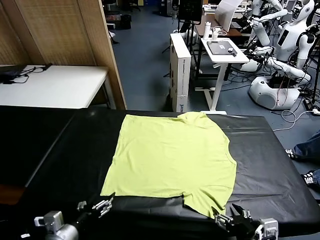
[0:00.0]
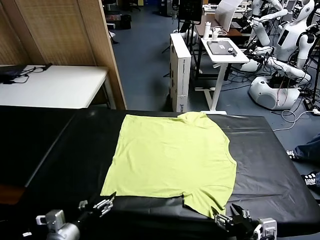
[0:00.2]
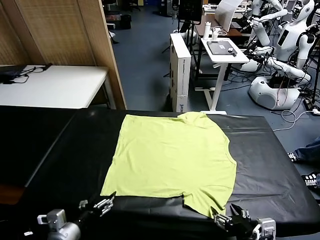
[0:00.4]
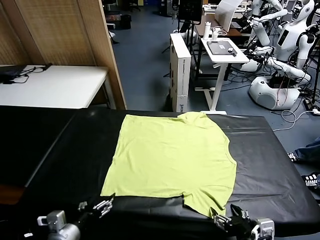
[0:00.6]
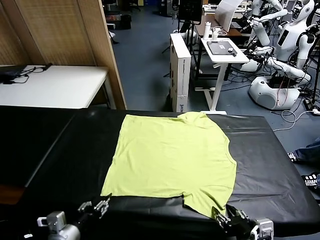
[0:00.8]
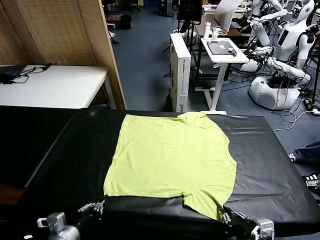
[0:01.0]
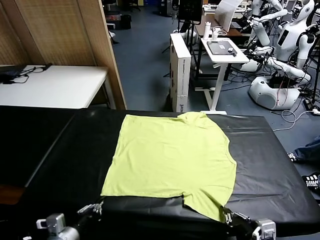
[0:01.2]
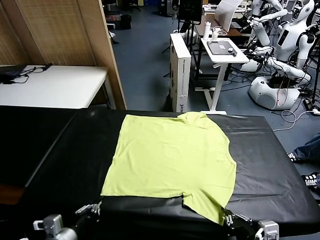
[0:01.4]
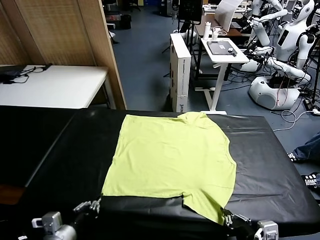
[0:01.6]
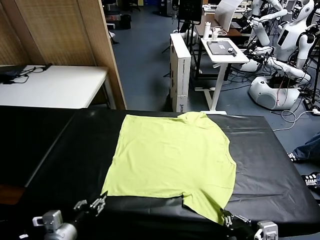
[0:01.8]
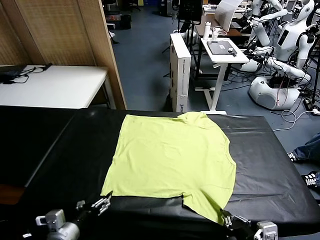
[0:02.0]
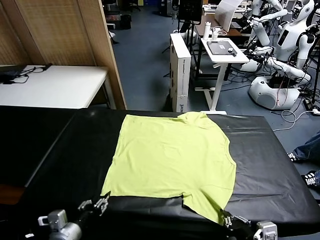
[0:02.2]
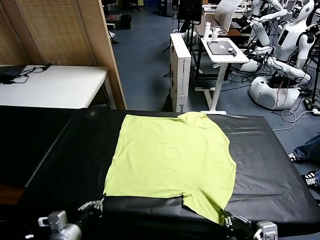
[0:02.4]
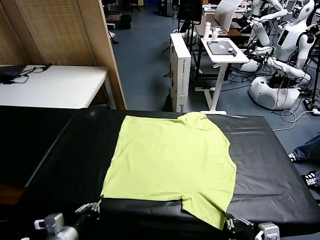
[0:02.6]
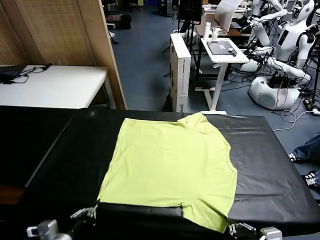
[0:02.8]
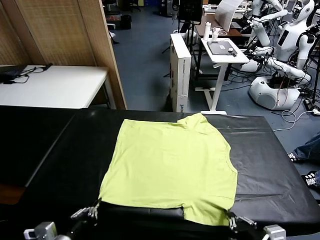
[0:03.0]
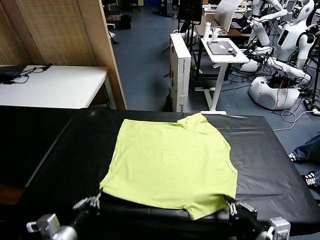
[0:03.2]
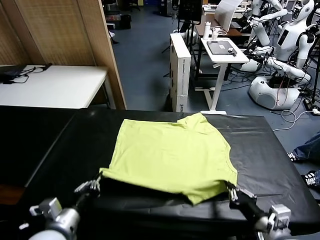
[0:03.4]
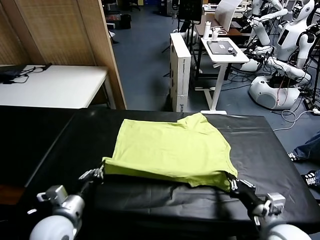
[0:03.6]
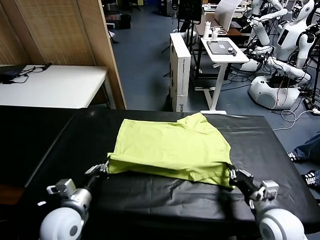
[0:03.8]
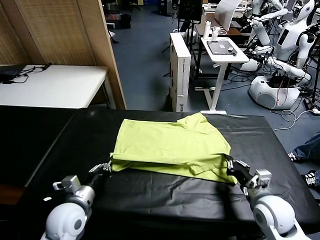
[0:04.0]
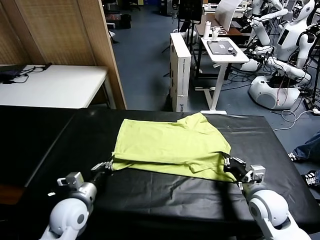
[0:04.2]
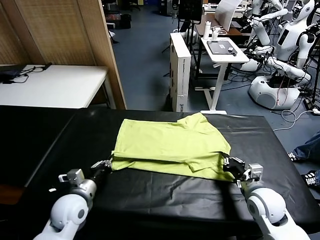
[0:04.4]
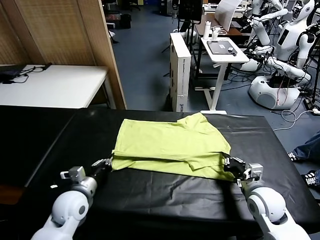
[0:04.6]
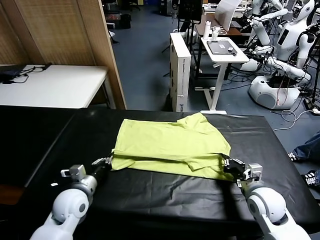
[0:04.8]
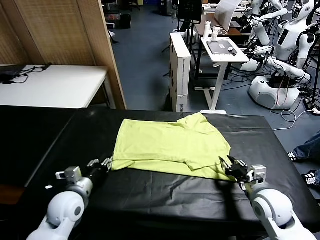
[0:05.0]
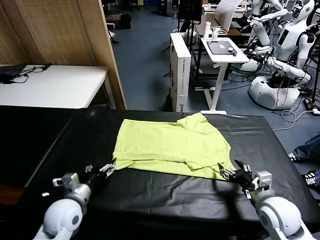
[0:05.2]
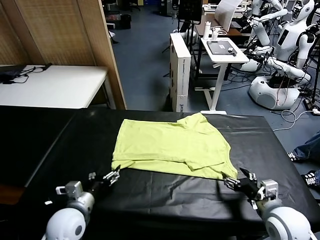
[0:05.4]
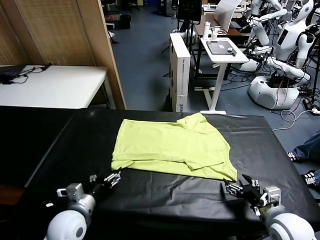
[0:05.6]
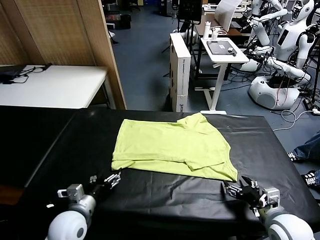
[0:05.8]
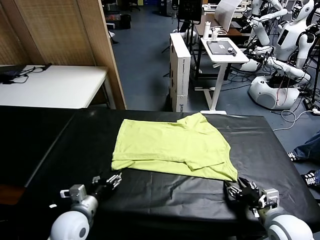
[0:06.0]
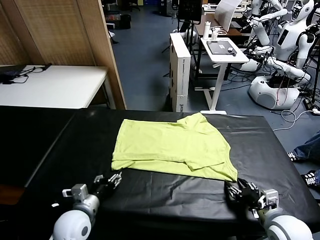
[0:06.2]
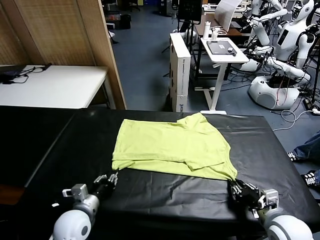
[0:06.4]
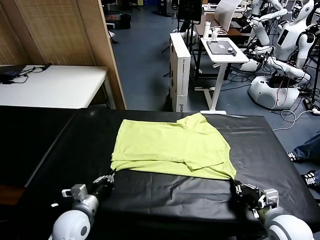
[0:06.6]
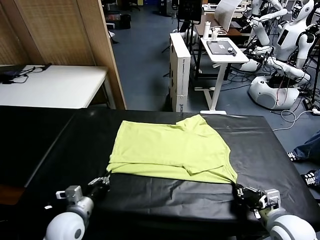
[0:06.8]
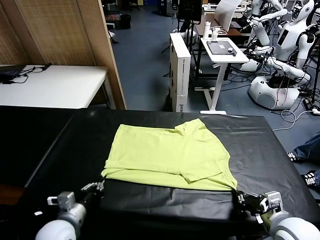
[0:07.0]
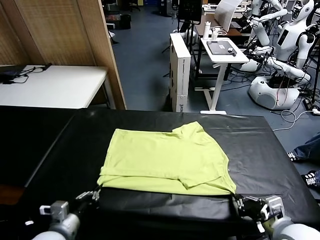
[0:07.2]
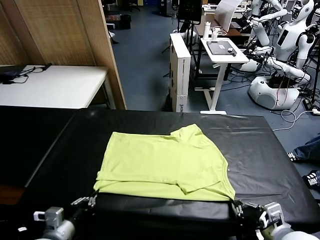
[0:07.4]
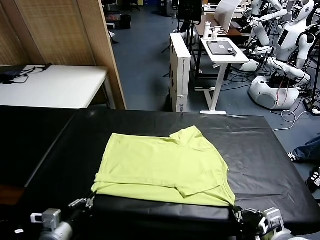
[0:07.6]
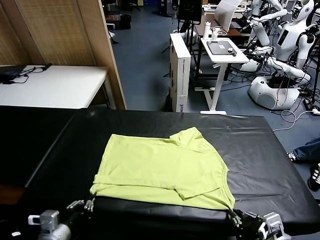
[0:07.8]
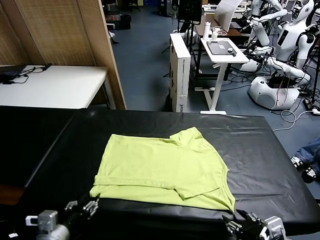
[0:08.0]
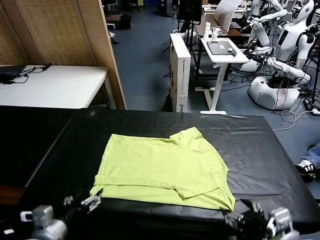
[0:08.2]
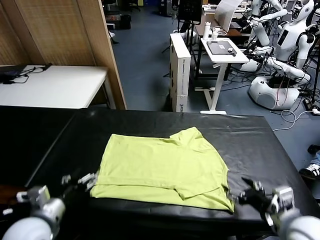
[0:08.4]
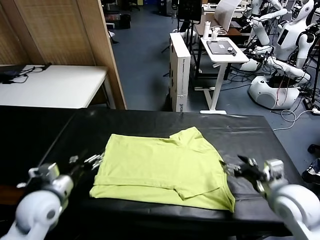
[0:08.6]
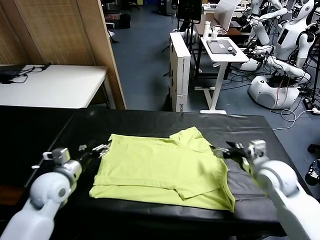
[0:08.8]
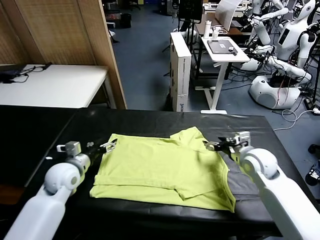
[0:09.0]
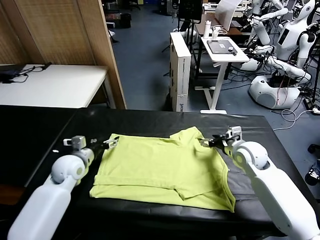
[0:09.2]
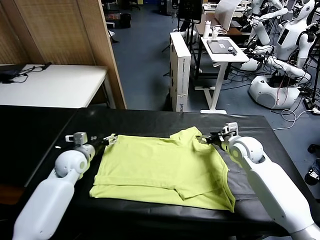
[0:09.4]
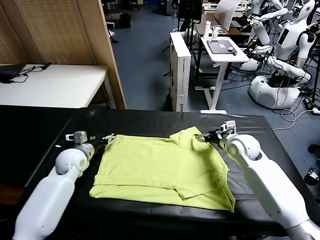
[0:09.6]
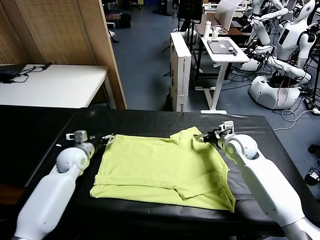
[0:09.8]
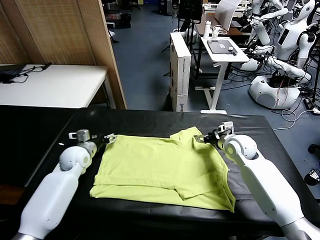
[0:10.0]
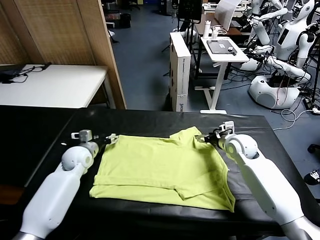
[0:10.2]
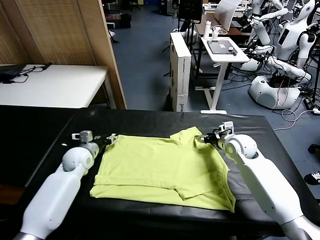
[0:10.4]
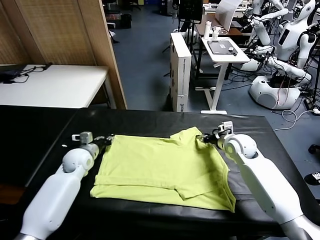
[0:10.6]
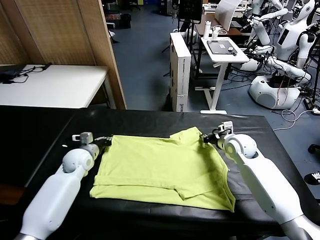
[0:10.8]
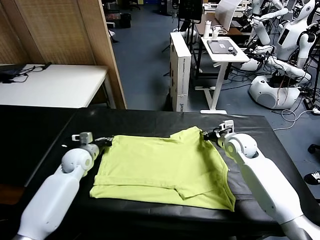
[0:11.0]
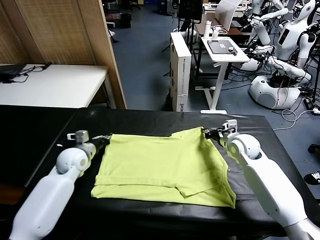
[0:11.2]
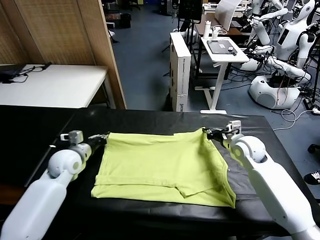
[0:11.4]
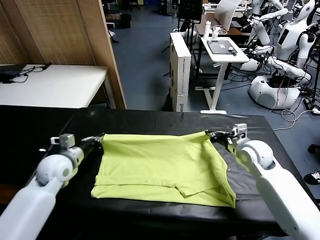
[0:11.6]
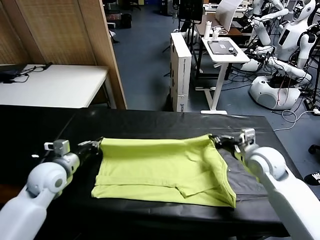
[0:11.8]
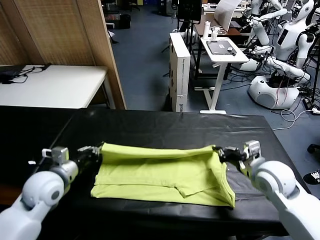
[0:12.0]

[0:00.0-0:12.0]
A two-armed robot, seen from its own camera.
Task of the whole recording: fold and organize the clothes.
Step, 0.0 to 2.6 s: use both grippers simultaneously to clamp the lower edge of the clothing fabric.
Step, 2.8 to 5.0 s: use both grippers to drag the lower edge of the fabric forward and fold it over the upper edge.
Step, 5.4 to 8.0 s: Drag the clothes downward with both gripper.
Step, 8.2 to 10.8 s: use both grippers simultaneously to clamp the upper edge of the clothing fabric.
1.6 to 3.0 s: The left gripper opens, then closes once more.
3.0 to 4.4 s: The right gripper shifts about 15 cm forward and downward. Meanwhile the left gripper goes about 15 cm forward.
4.4 to 6.0 s: The left gripper is displaced backward by roughly 5 cm, and opens, while the right gripper heads backward, covering some 10 cm, and opens and closes again.
6.0 to 7.6 s: The two grippers go about 10 cm backward and upward. The left gripper closes.
7.6 to 9.0 s: Both grippers move forward, about 30 cm. The left gripper opens its fingers. Meanwhile the right gripper opens up.
9.0 to 10.4 s: The left gripper shifts by some 5 cm; the right gripper closes.
10.4 to 12.0 s: The left gripper is displaced backward and upward by some 20 cm, and closes up. The right gripper moves backward, approximately 20 cm.

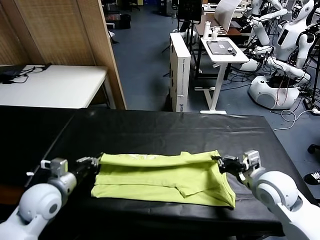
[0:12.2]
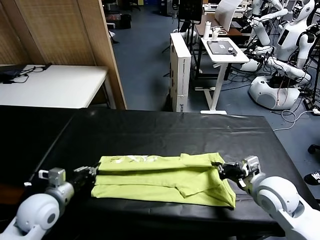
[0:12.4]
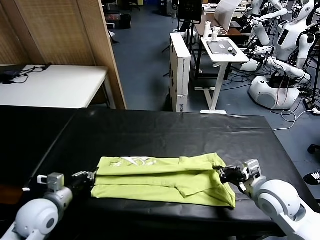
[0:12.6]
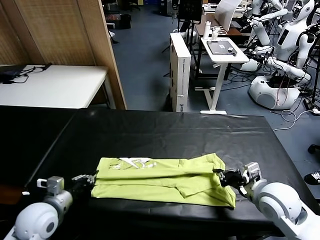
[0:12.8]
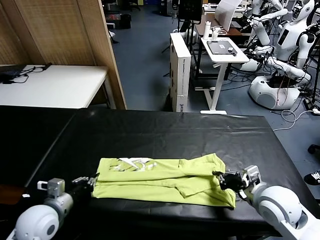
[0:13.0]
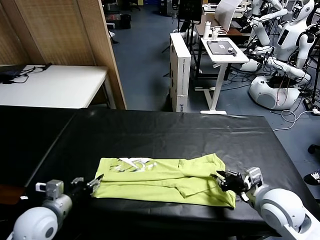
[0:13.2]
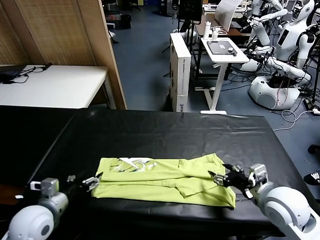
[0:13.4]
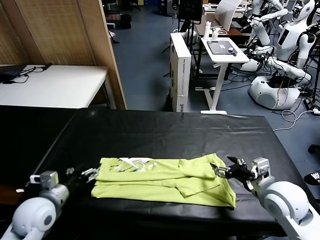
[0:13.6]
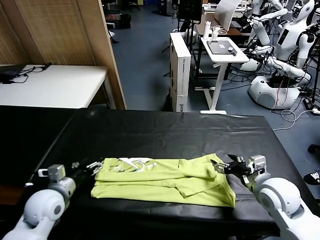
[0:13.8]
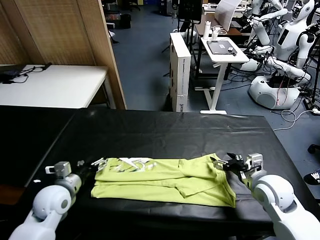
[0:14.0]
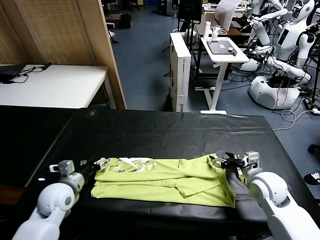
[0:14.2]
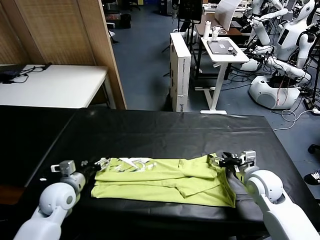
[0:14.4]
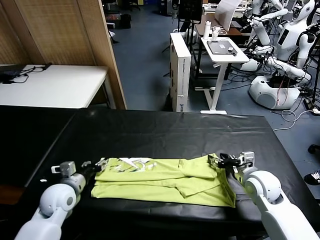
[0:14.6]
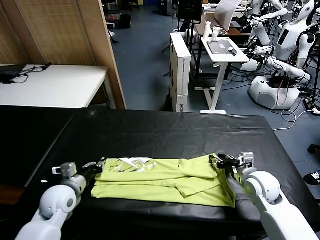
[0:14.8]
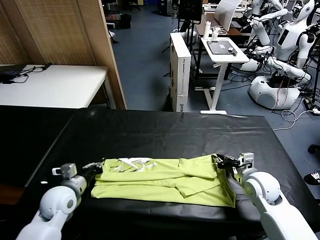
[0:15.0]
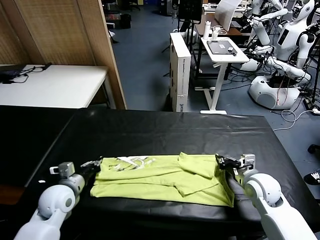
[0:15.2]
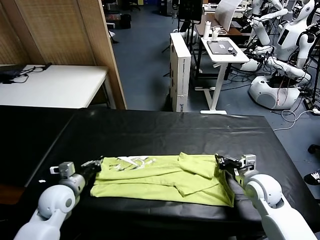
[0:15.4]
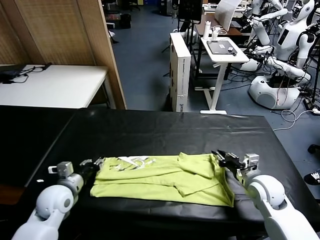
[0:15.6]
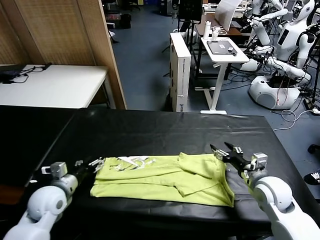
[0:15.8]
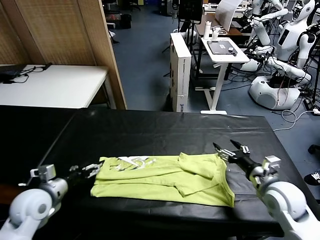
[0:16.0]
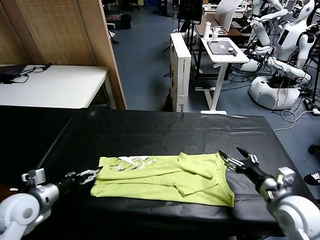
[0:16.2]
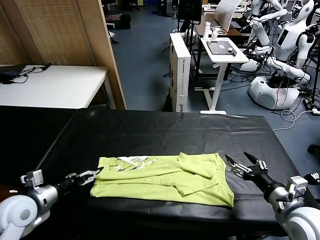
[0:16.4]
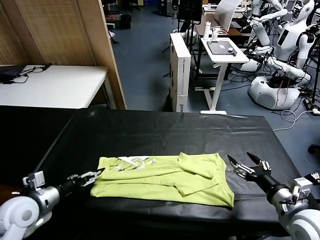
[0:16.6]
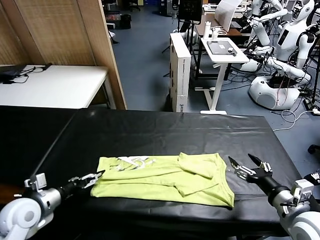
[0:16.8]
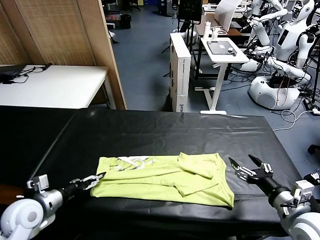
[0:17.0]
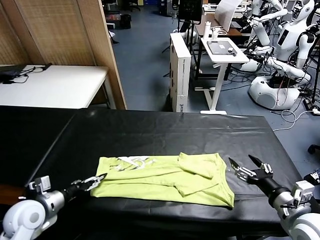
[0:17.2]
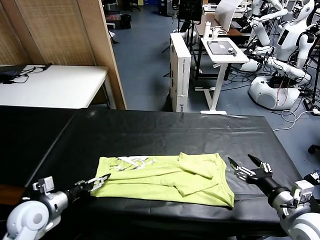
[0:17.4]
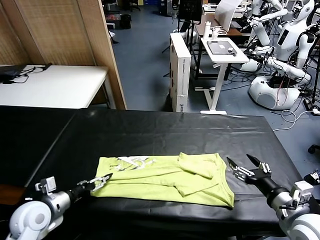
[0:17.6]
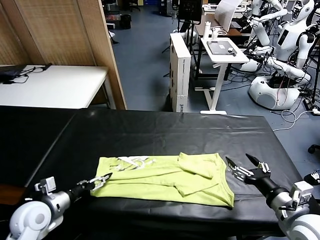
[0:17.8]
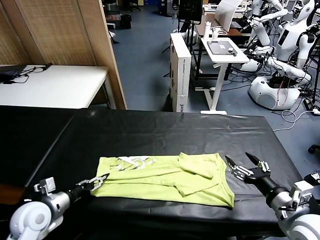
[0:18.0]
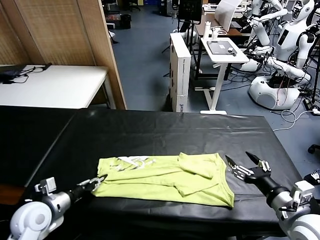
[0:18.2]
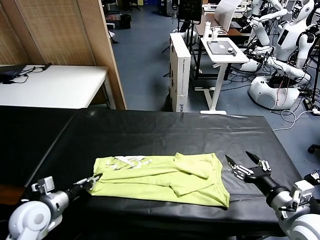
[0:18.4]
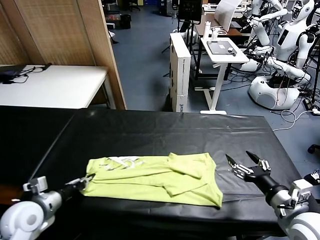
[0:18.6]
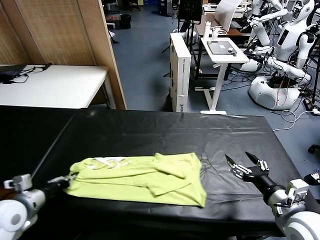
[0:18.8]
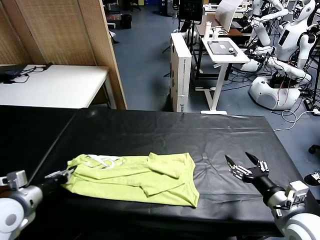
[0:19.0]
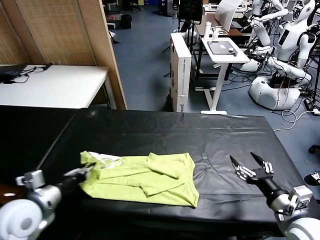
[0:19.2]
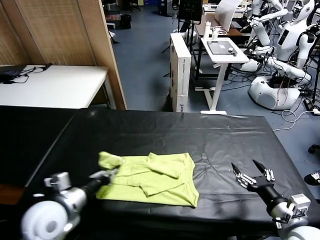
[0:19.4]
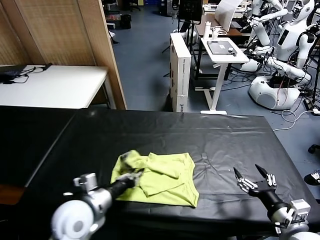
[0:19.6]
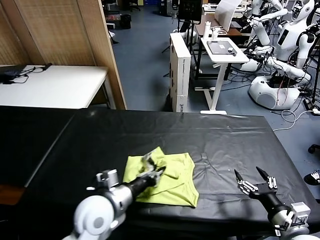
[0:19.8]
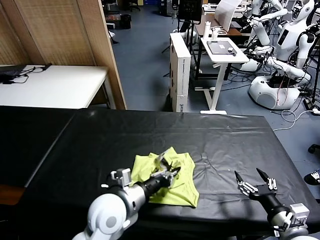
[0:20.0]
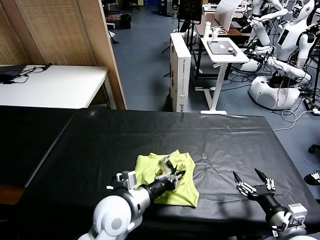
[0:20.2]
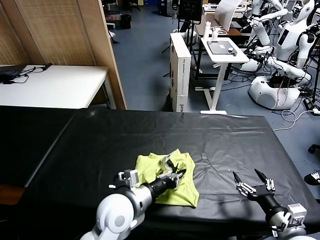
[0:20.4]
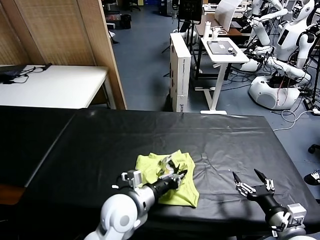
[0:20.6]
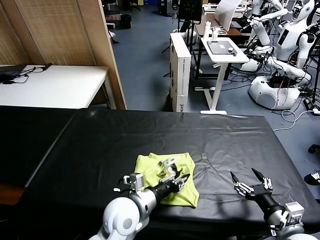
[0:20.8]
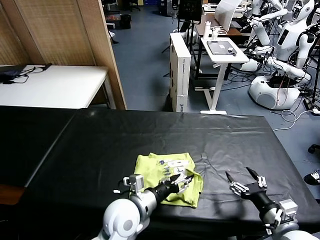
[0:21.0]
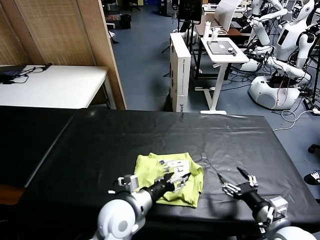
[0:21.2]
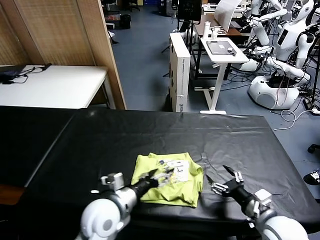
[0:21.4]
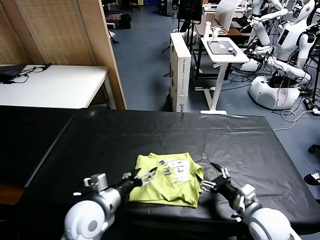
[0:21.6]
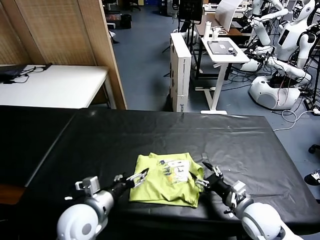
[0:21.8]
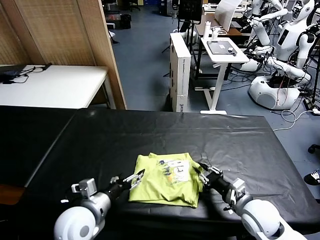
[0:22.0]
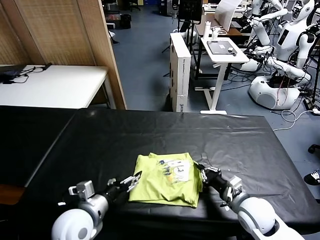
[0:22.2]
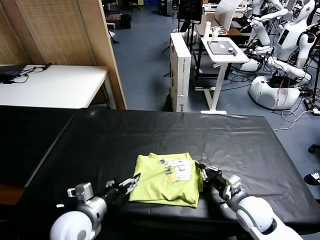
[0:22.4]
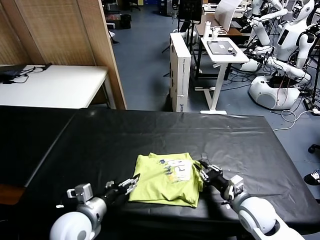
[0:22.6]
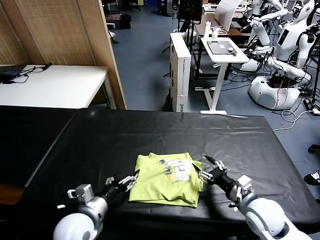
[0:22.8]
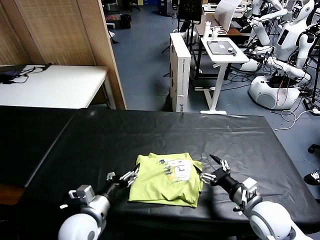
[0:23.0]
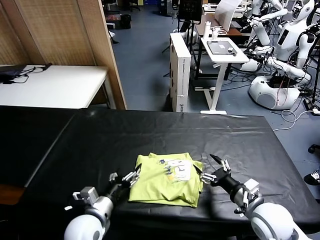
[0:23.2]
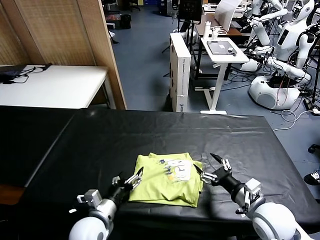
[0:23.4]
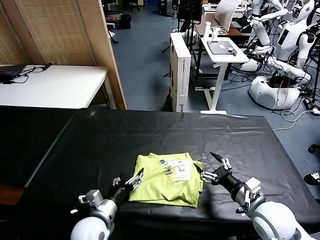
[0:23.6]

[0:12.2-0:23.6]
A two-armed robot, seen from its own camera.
Task of the whole recording: fold and organize the clothes.
Step, 12.2 to 13.4 s: use both grippers to drag the upper edge of the fabric backward and fold it over the lower edge.
Step, 13.6 to 18.2 s: use the left gripper to clamp the left edge of the fabric.
Step, 18.6 to 21.2 s: use the left gripper to drag the left edge of the fabric to the left and folds it over the right edge.
12.2 to 13.6 s: The right gripper opens its fingers; the left gripper opens its fingers.
13.6 to 15.0 s: The left gripper closes its fingers. Meanwhile the right gripper shifts by approximately 5 cm, and closes its fingers.
15.0 to 16.4 s: The left gripper moves to the left and backward, approximately 10 cm, and opens up. Meanwhile the right gripper shifts approximately 15 cm backward and upward, and opens.
16.4 to 17.8 s: The grippers stay close to where they were, moving slightly.
17.8 to 19.4 s: The right gripper ends up approximately 5 cm from where it was; the left gripper travels to the right by about 15 cm, and closes up.
19.4 to 20.8 s: The left gripper goes about 10 cm to the right, and opens.
20.8 to 22.2 s: The right gripper heads forward, to the left and downward, covering about 15 cm, and closes its fingers; the left gripper moves to the left, roughly 10 cm, and opens its fingers.
22.2 to 23.6 s: The left gripper is displaced downward by roughly 10 cm. The right gripper moves upward, about 5 cm, and opens up.
